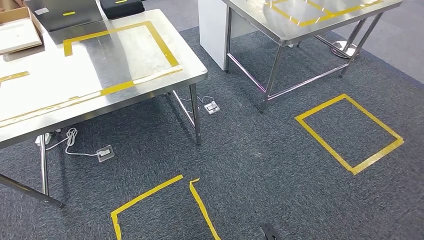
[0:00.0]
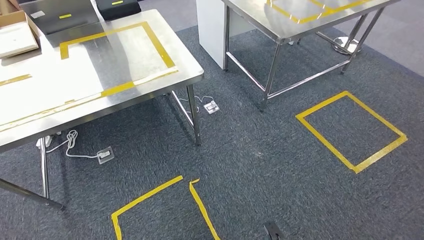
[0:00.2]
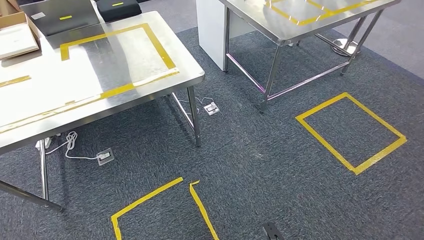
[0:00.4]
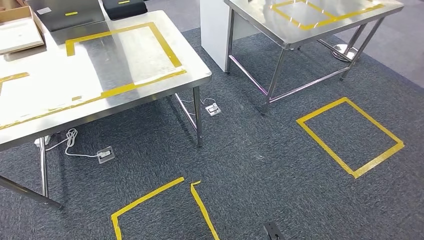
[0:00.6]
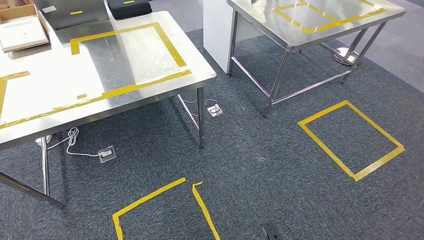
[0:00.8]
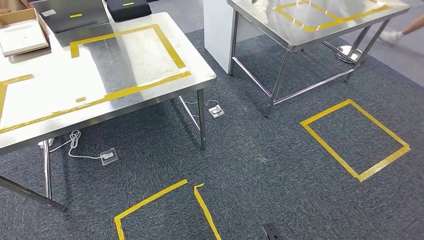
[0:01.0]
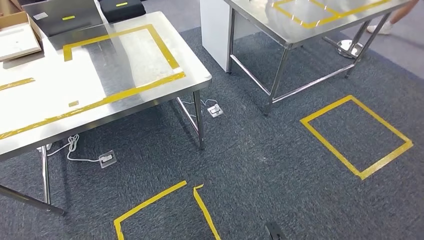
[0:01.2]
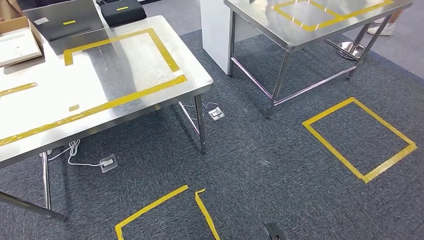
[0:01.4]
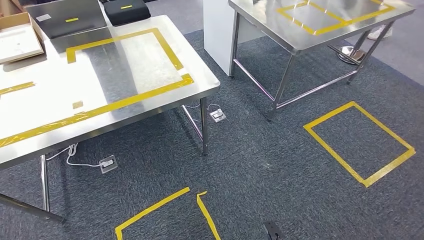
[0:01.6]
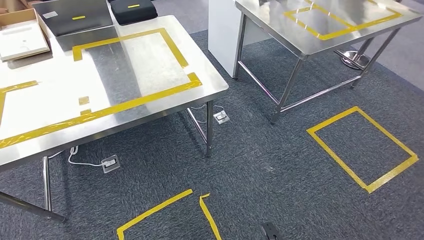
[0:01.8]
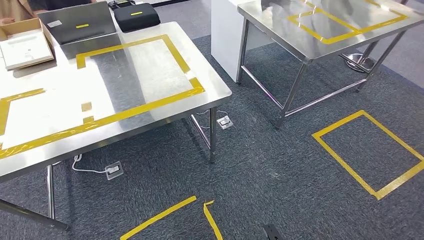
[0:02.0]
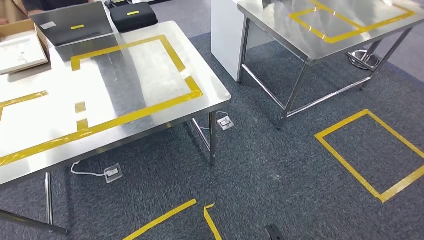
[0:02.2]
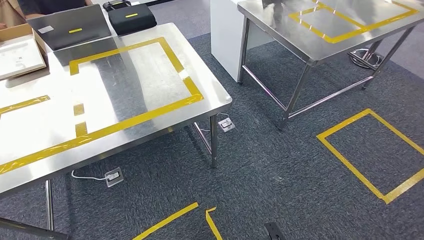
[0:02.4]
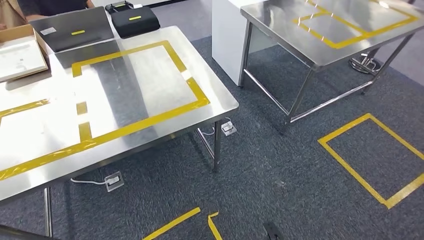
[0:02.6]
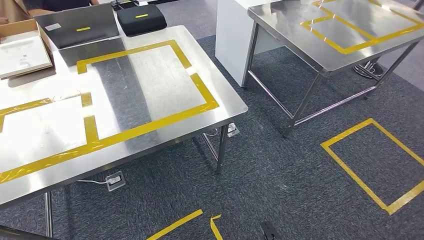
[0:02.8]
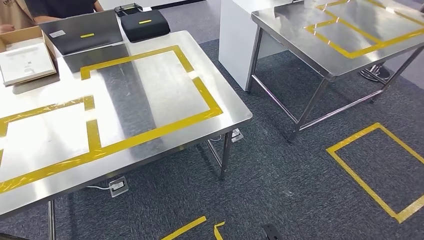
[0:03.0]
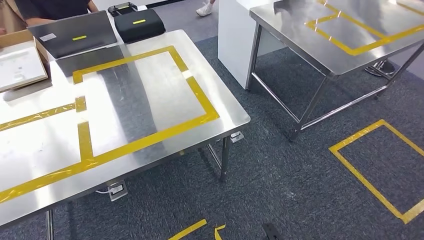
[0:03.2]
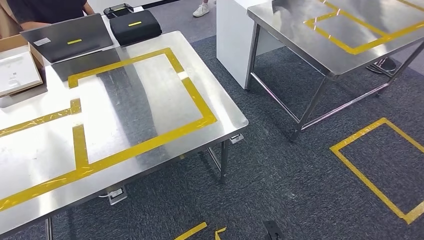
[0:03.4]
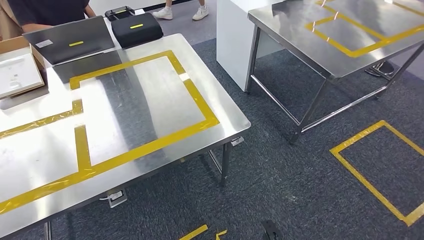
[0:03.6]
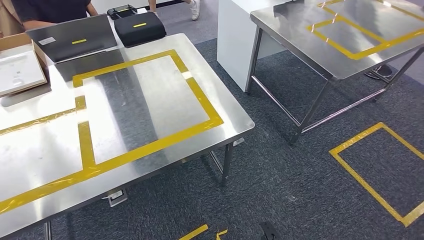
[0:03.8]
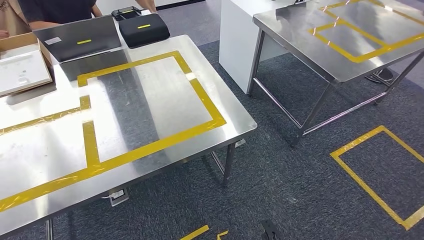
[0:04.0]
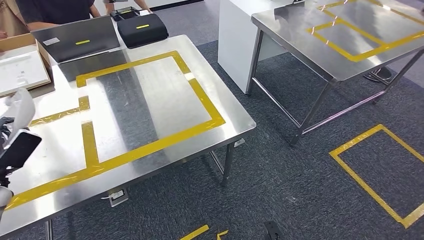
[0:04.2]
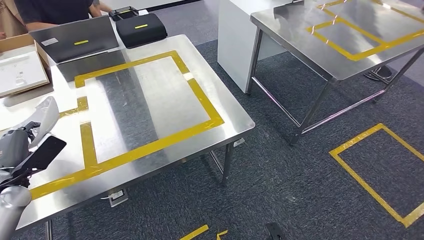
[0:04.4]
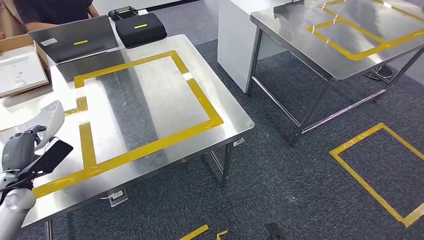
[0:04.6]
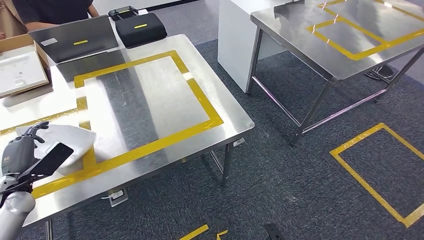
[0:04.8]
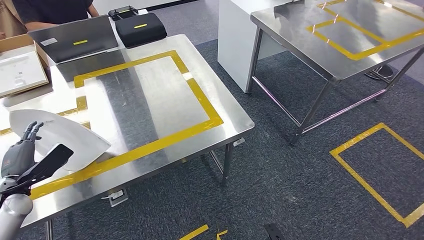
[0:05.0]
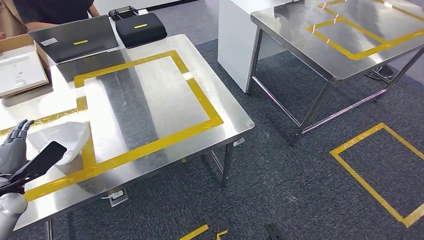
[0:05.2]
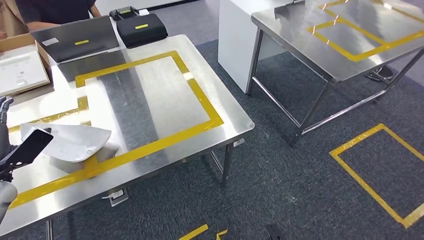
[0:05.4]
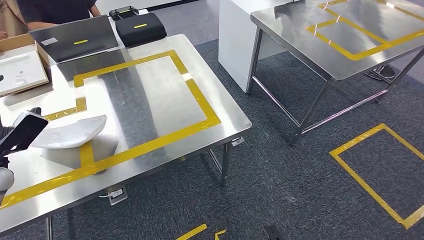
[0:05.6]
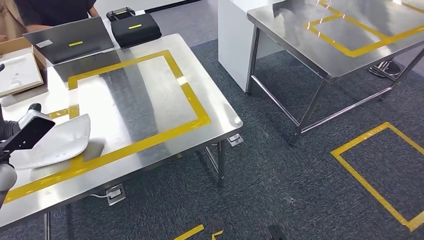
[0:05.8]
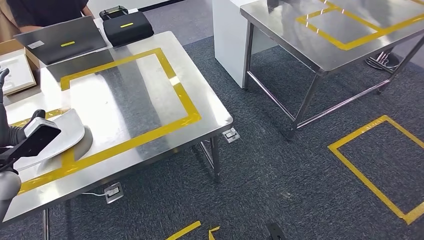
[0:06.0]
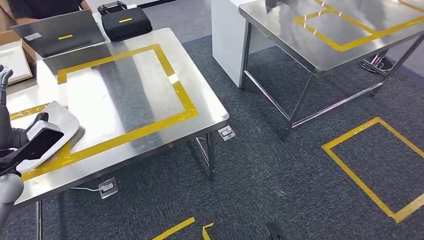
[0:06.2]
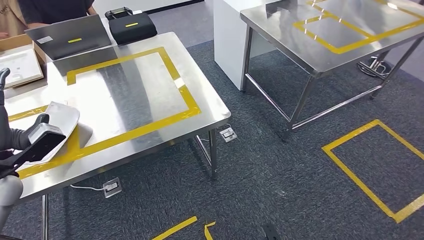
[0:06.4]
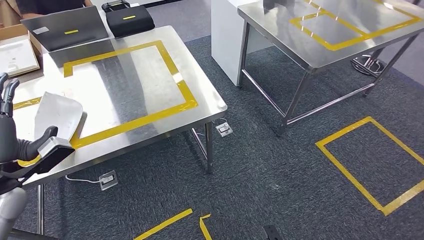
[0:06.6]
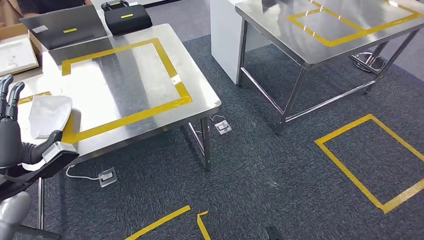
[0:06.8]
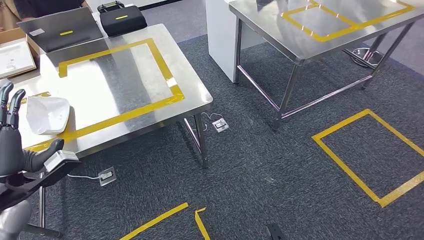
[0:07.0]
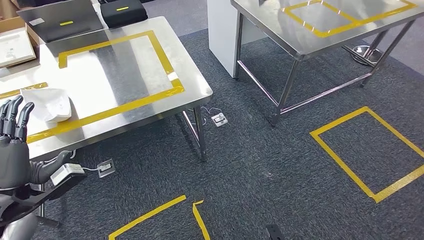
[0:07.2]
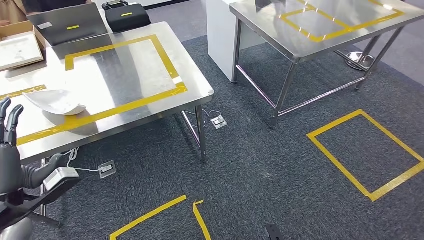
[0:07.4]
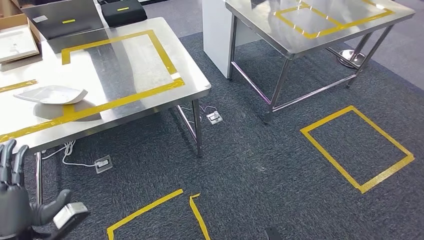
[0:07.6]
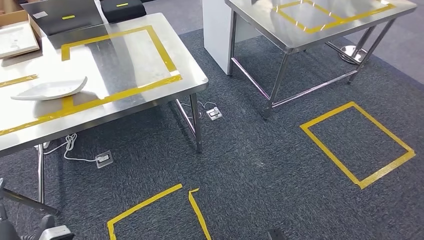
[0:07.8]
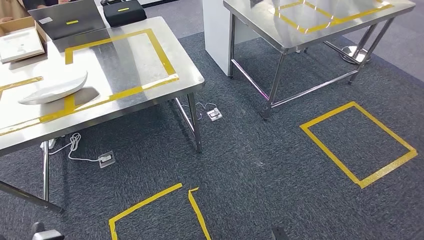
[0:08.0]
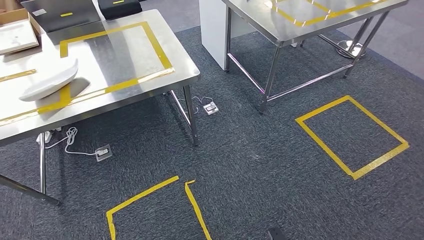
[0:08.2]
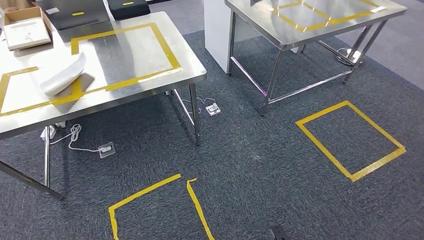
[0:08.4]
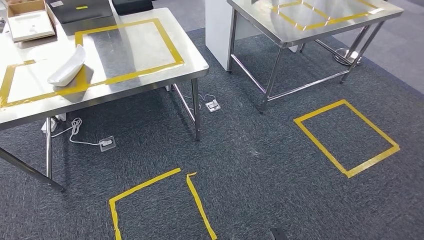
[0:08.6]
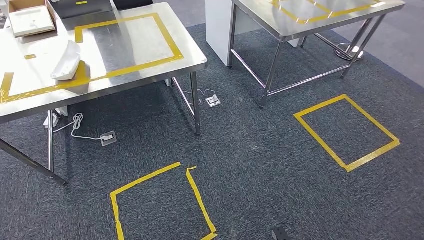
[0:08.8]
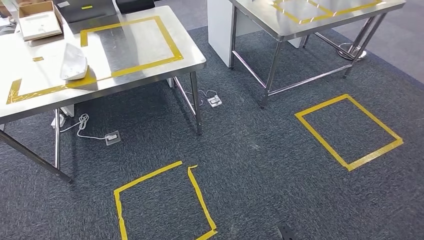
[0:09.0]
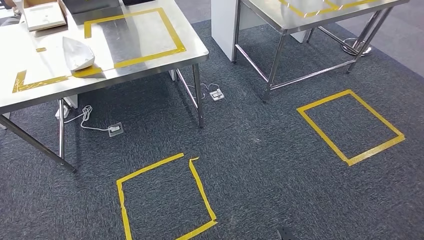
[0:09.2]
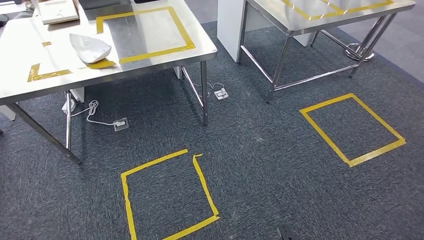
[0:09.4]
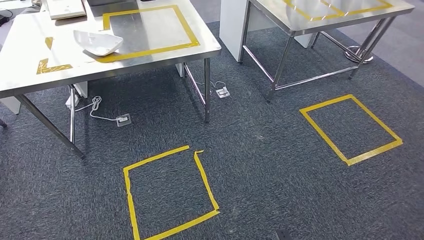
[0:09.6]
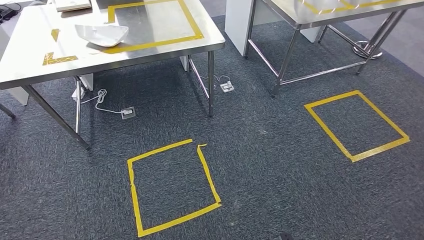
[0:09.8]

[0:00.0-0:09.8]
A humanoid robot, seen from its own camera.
Step, 0:00.0 to 0:03.4: Move the small parts to the workbench.
Step, 0:03.6 to 0:06.2: Insert the small parts into the corresponding holes on the workbench.
0:04.2 to 0:05.6: The left hand changes place by roughly 5 cm.

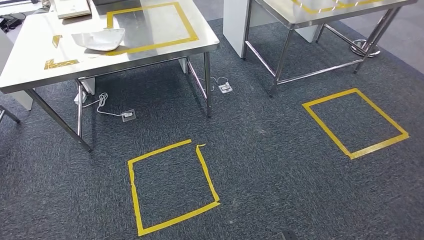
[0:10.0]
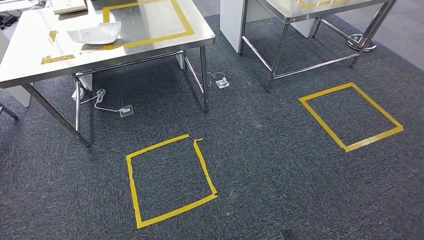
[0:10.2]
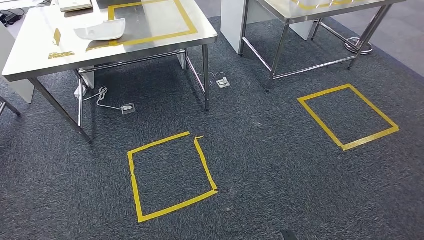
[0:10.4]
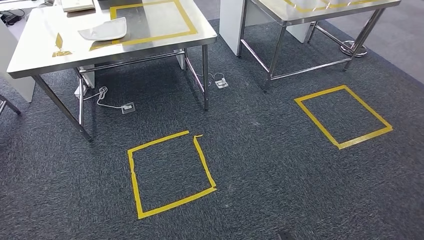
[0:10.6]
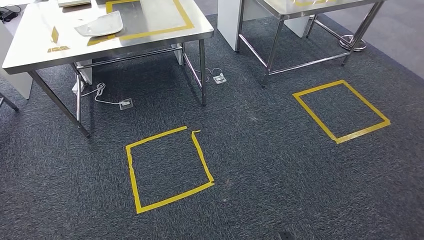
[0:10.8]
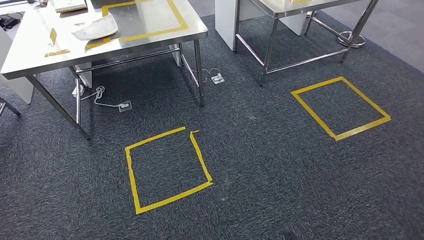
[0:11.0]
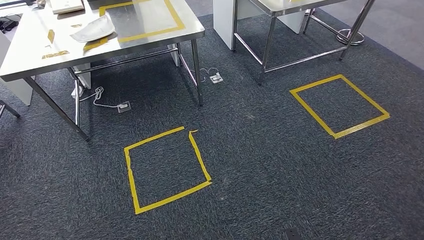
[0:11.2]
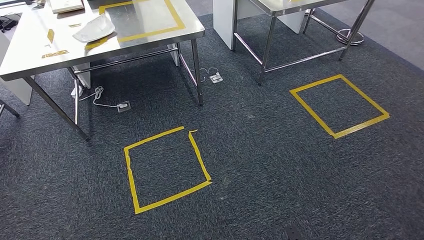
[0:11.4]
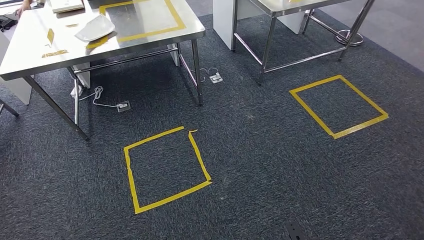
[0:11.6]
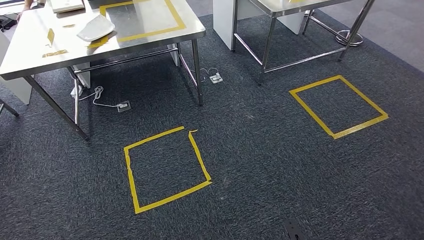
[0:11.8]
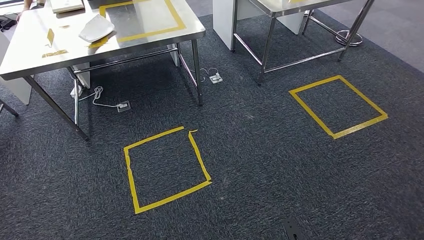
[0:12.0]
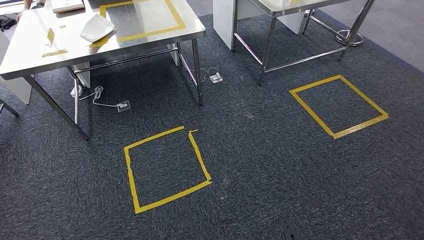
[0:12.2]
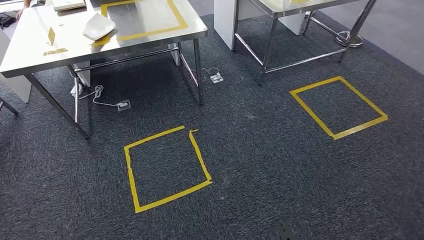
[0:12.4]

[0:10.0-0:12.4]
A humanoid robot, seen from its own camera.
Step, 0:10.0 to 0:12.2: Move to the initial position of the workbench.
0:11.2 to 0:12.4: The hands move only a little.
